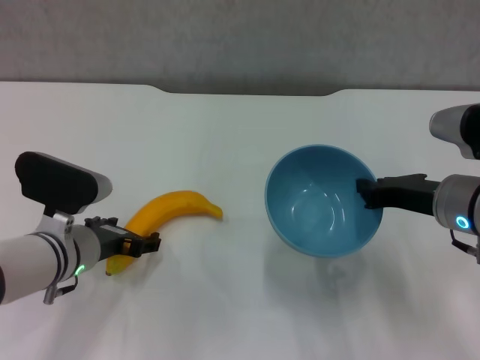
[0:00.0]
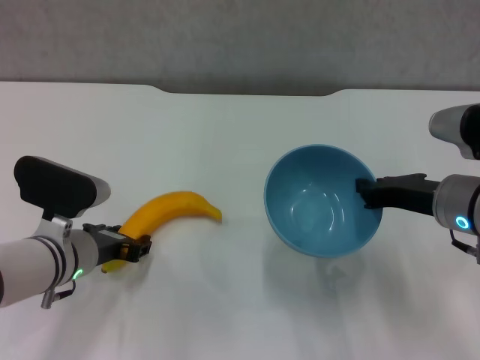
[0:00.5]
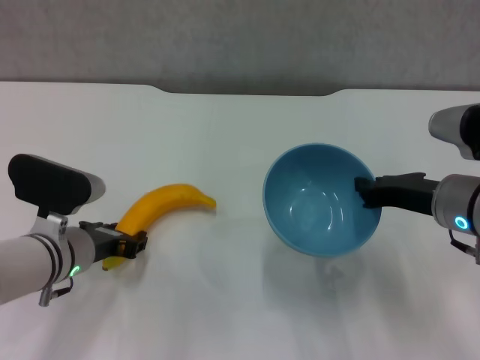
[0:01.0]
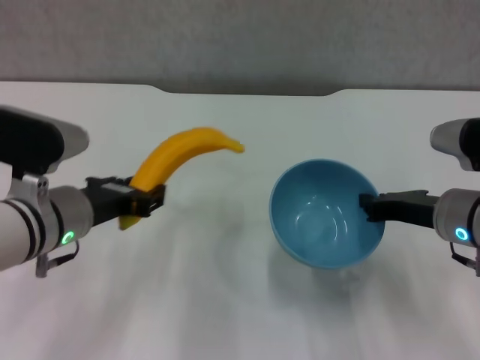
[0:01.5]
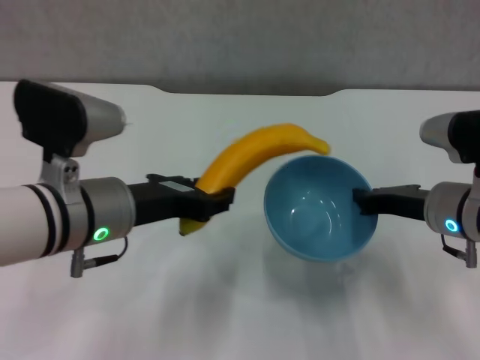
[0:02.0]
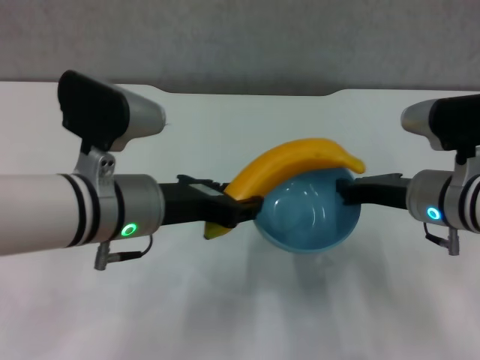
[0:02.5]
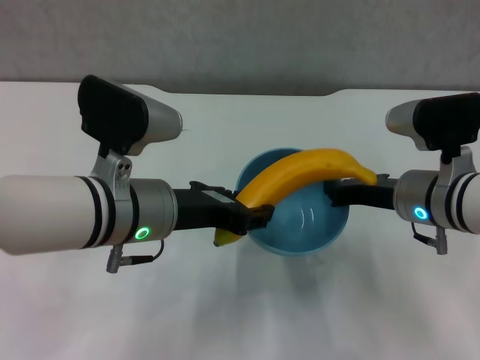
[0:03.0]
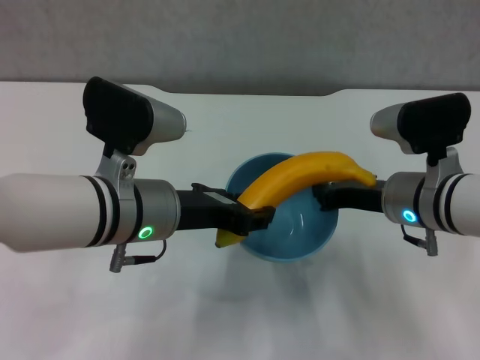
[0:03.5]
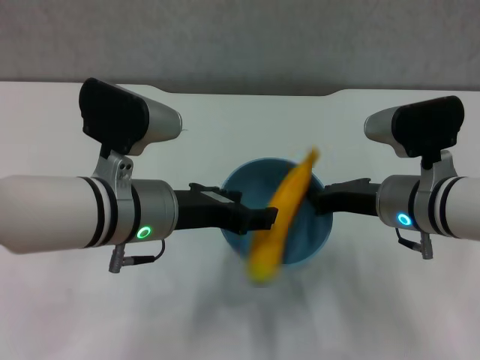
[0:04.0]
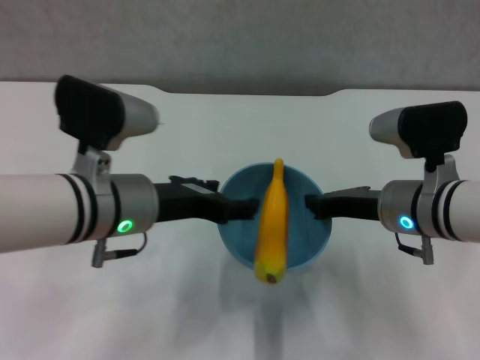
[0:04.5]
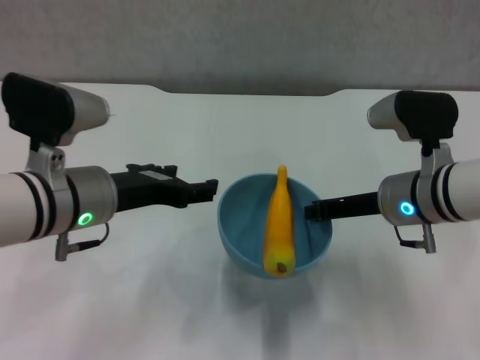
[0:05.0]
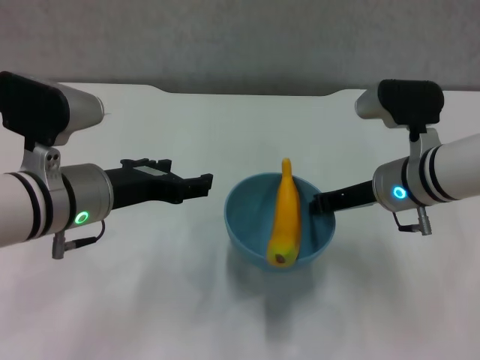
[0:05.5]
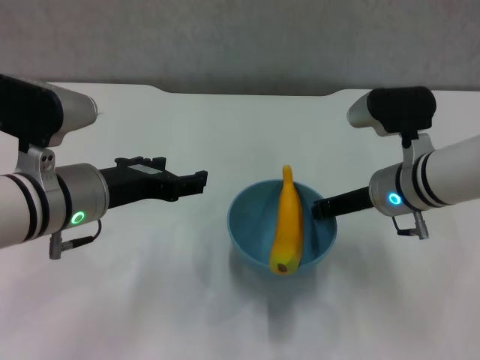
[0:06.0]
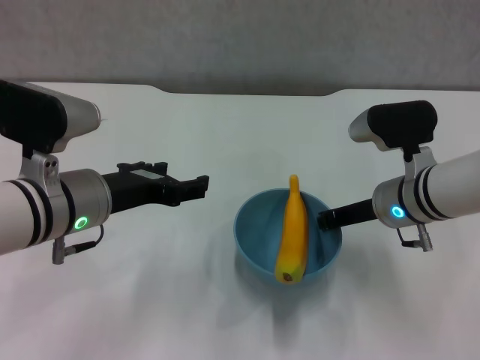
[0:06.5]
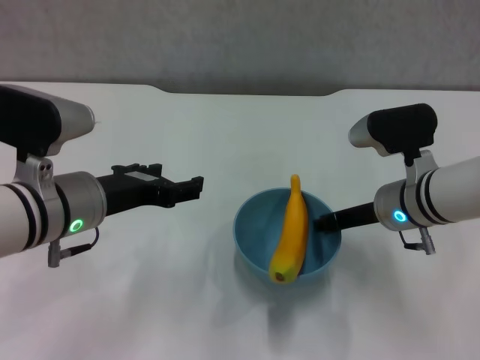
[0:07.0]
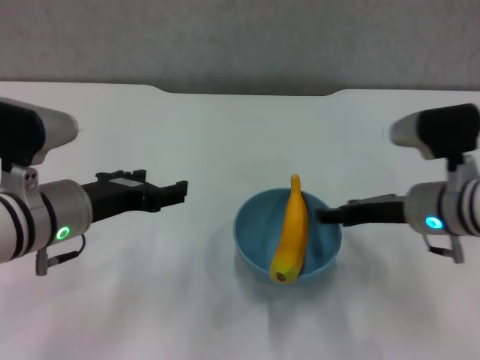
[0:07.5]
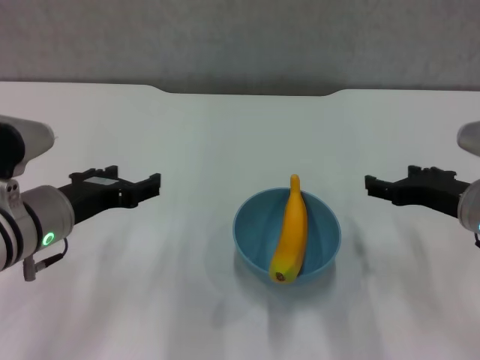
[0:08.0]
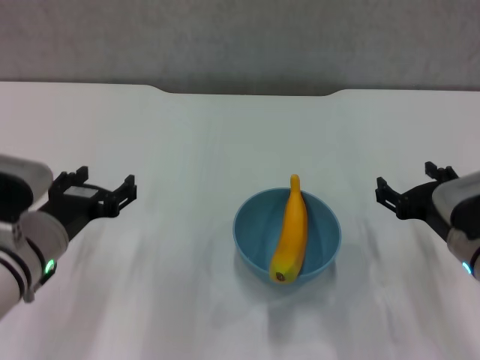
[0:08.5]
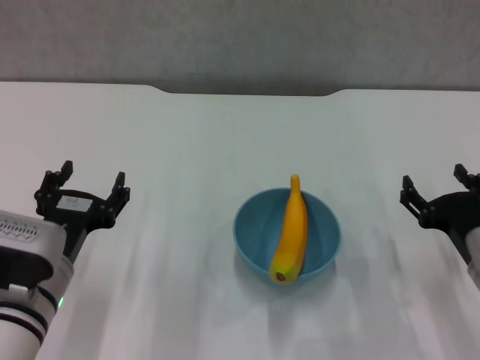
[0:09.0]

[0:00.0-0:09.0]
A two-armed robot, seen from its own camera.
Step, 0:01.0 to 0:04.5: Place the banana in the blue bowl with left gripper.
Step, 0:05.0 to 0:07.5: Place the bowl on the table with right gripper.
0:00.0 to 0:02.0: The left gripper moves upward, some 10 cm, and closes up.
0:02.0 to 0:04.5: The left gripper opens up.
0:07.0 to 0:09.0: The left gripper travels downward and backward by about 10 cm, while the right gripper travels backward, to the right and downward by approximately 15 cm, and opens its fingers.

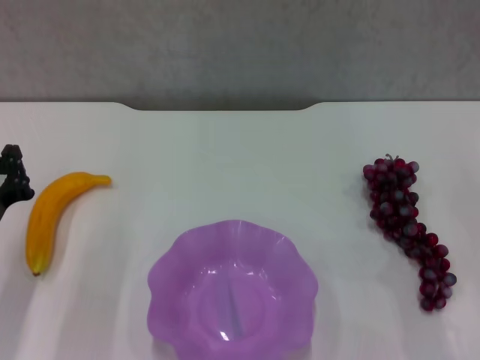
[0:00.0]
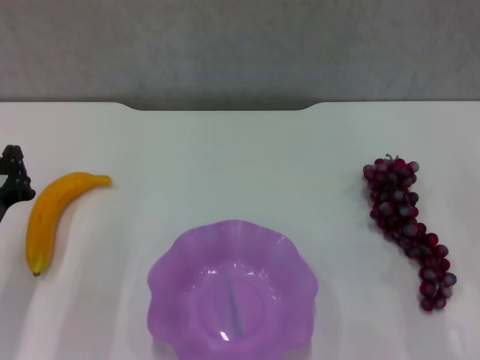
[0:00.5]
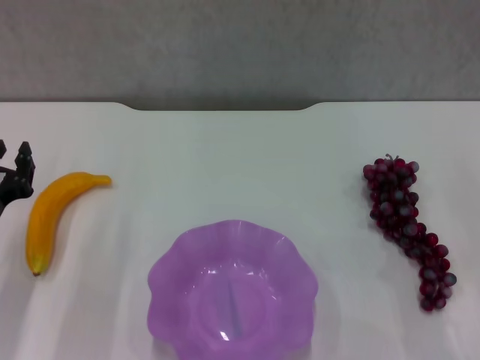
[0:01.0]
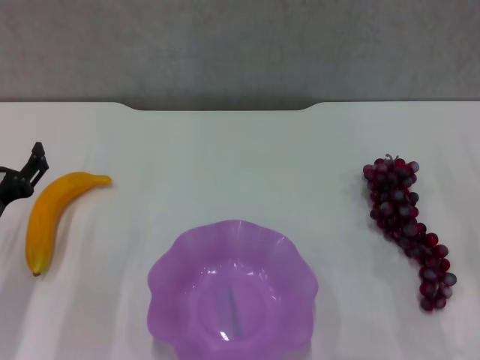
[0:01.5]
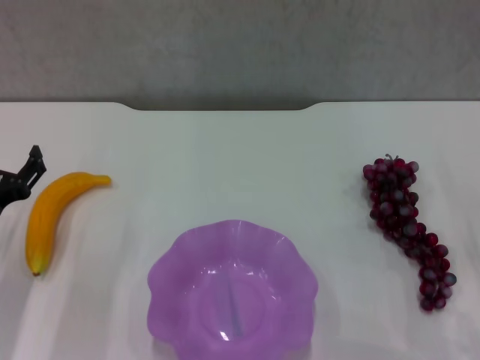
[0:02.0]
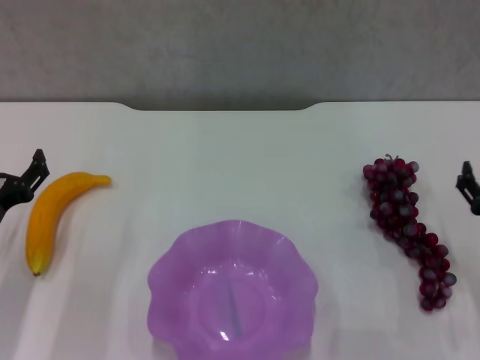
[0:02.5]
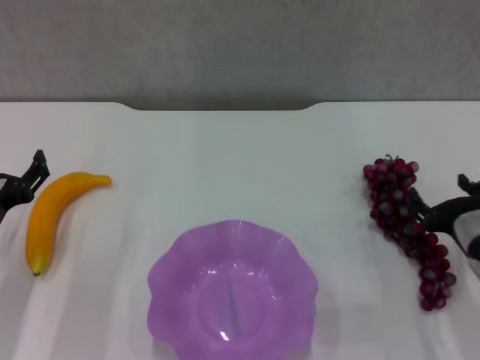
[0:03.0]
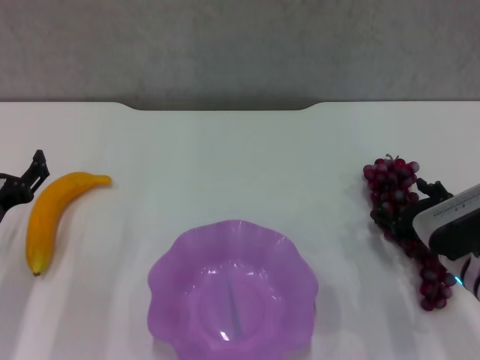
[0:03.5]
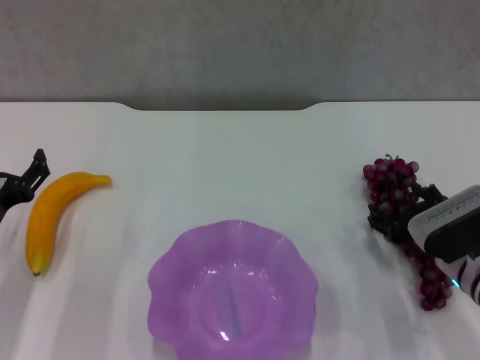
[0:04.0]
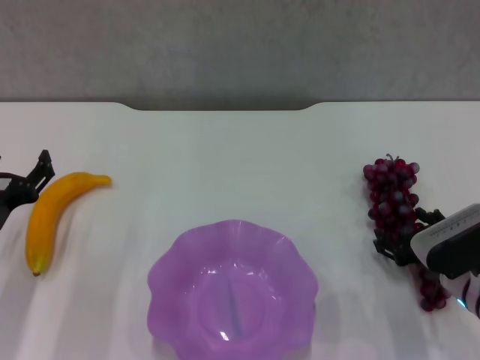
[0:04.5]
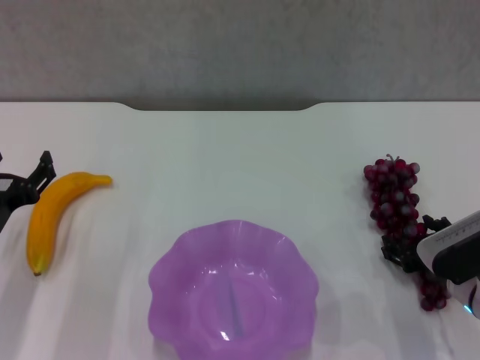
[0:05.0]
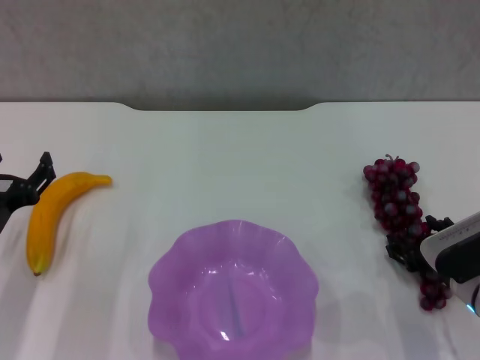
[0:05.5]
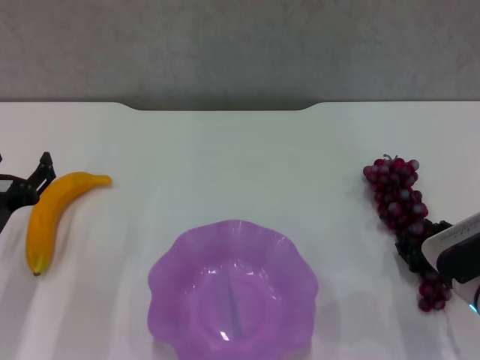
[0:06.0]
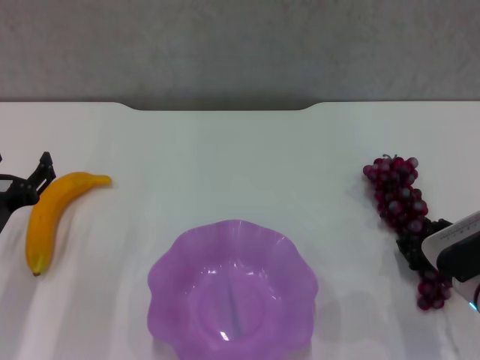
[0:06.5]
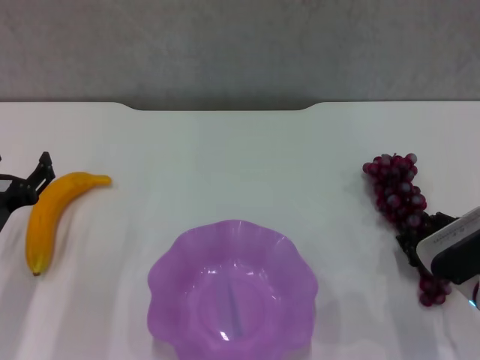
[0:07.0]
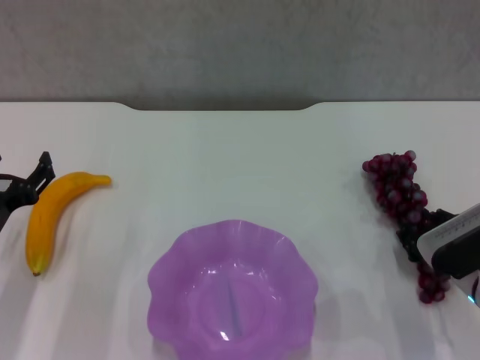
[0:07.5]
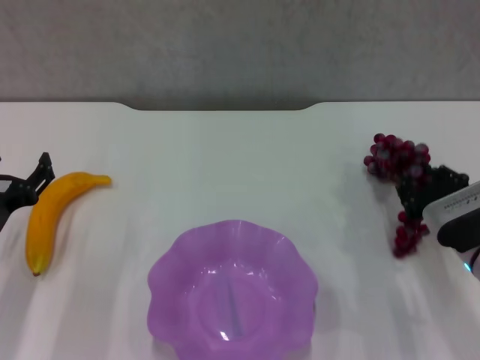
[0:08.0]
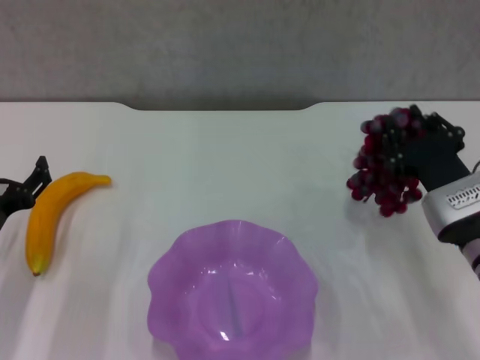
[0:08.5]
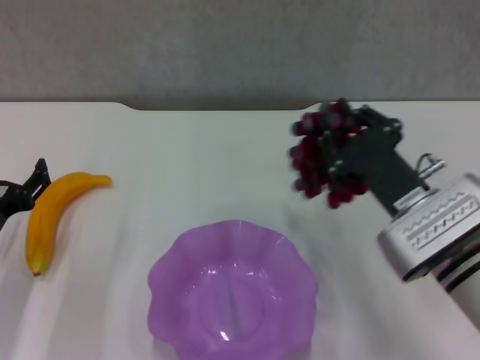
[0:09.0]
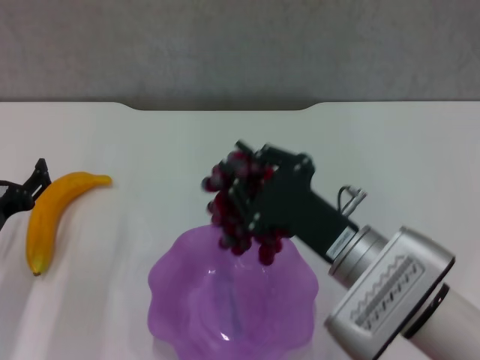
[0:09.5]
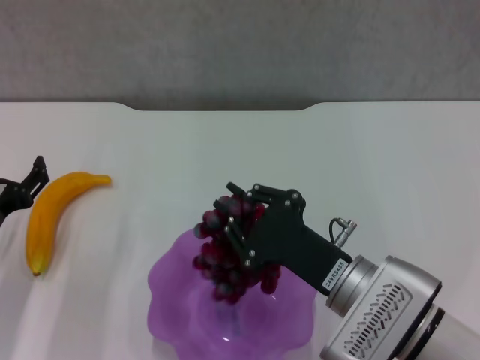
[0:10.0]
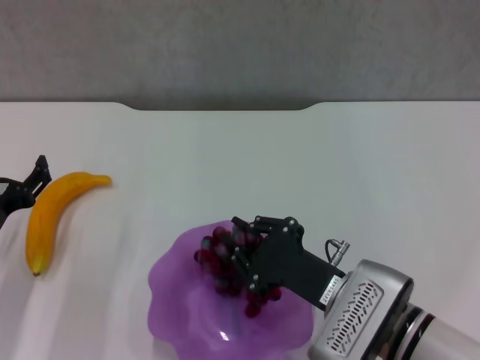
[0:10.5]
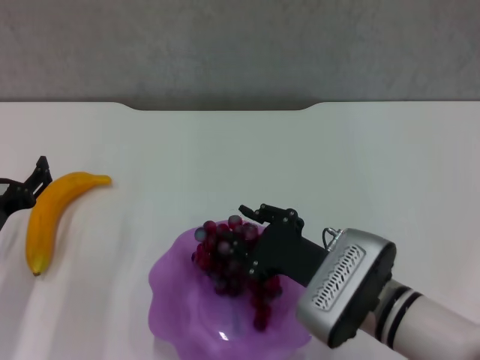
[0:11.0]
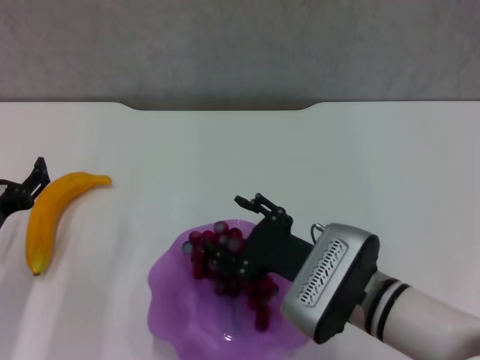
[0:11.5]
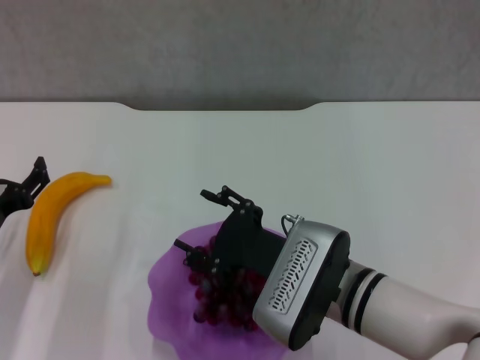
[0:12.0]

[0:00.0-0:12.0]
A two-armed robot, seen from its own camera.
Step, 0:00.0 to 0:06.5: Grasp the grape with right gripper.
Step, 0:07.0 to 0:12.0: Place the grape in the purple plate with right gripper.
0:00.0 to 0:02.0: The left gripper opens its fingers.
0:02.0 to 0:04.0: The right gripper moves to the left, approximately 5 cm.
0:04.0 to 0:08.0: There are only small adjustments of the grippers.
0:08.0 to 0:10.0: The right gripper moves to the left and backward, approximately 15 cm.
0:10.0 to 0:12.0: The right gripper opens.

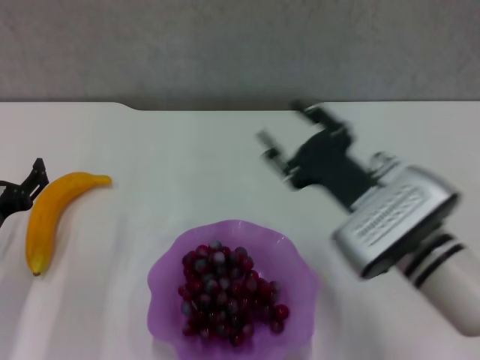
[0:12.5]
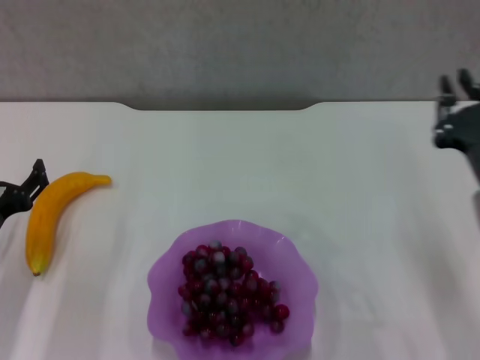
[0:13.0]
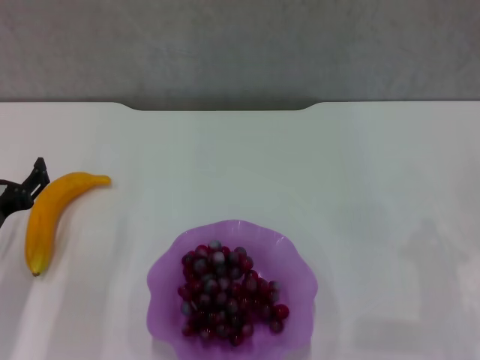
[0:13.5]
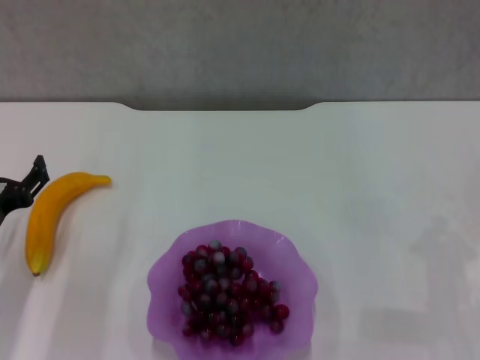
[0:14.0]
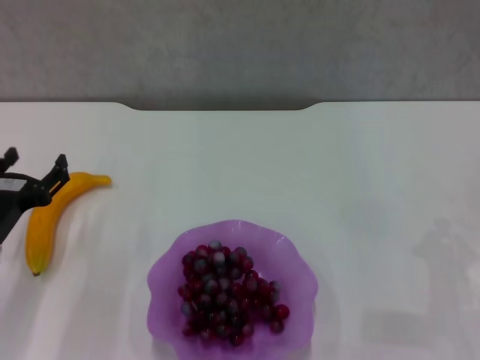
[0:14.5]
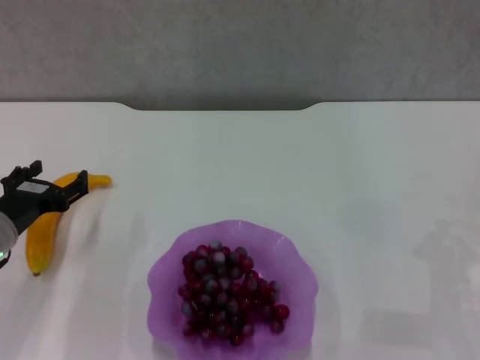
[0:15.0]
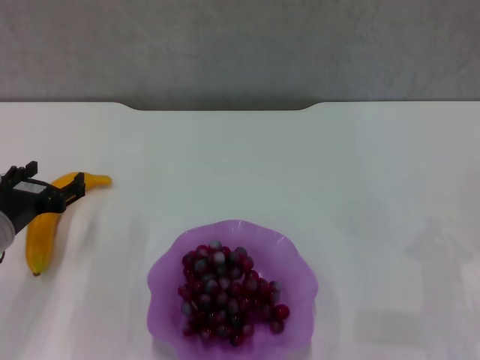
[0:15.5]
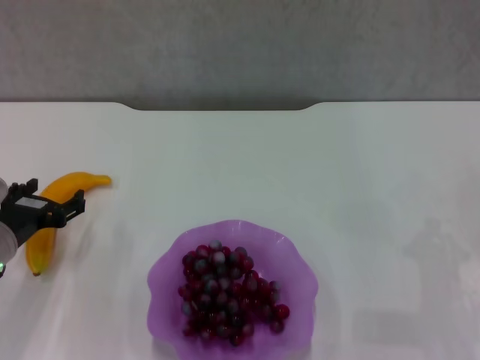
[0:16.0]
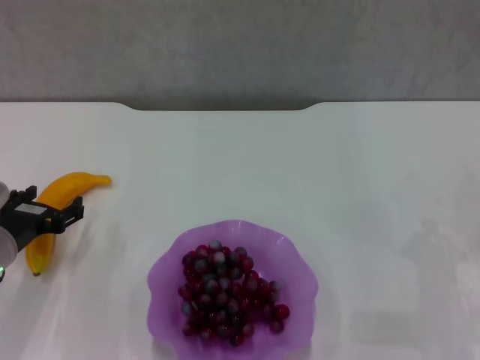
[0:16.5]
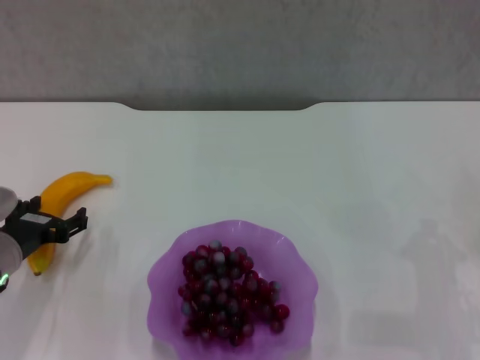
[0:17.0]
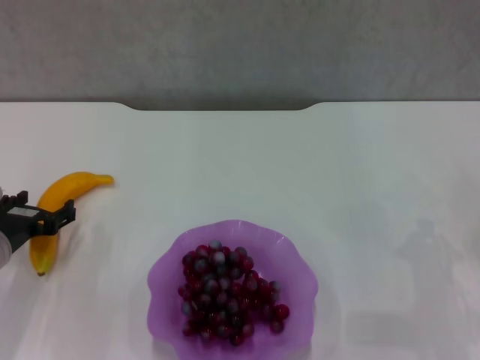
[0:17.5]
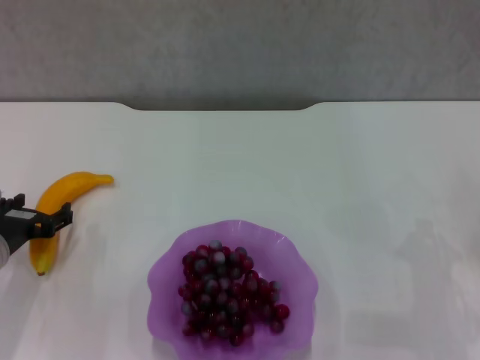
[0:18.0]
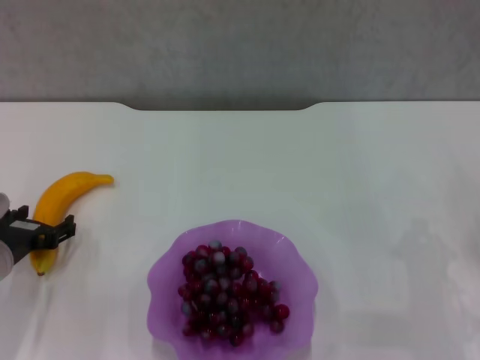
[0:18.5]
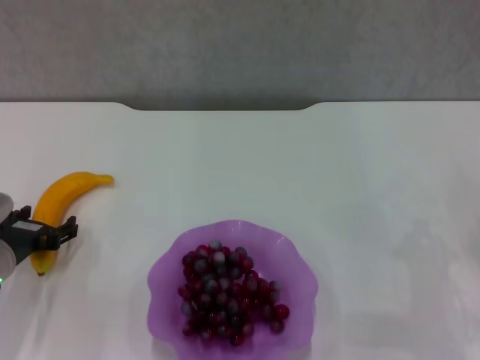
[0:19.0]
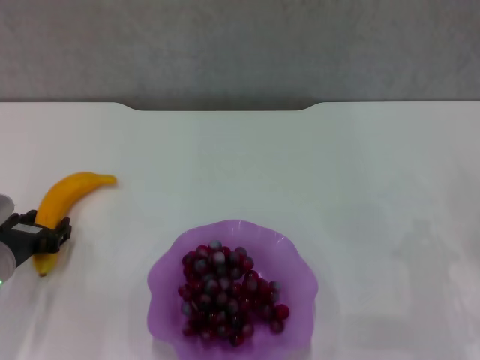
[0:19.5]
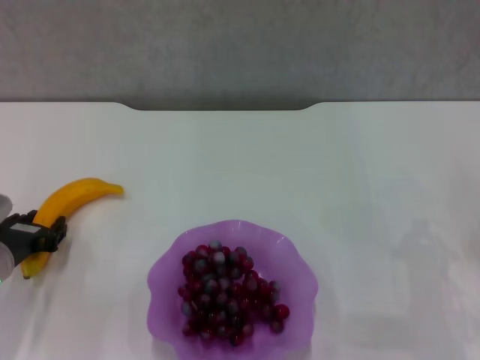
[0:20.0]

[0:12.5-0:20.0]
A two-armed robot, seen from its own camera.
Step, 0:12.5 to 0:19.5: Grasp the banana with left gripper.
0:12.5 to 0:14.5: The right gripper travels to the right by about 20 cm, and closes.
0:16.5 to 0:18.0: Both grippers stay put.
0:18.0 to 0:20.0: The left gripper closes its fingers.
